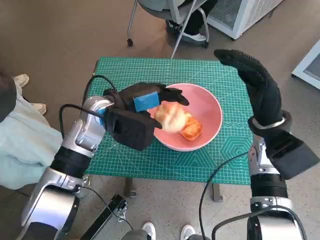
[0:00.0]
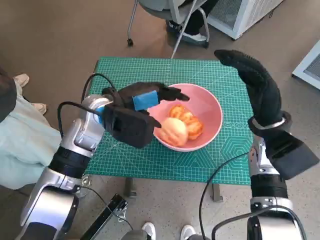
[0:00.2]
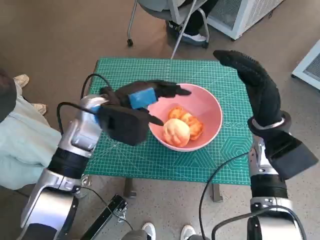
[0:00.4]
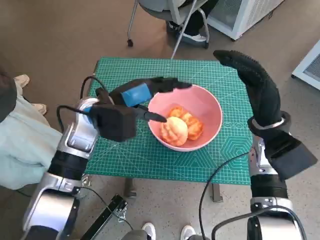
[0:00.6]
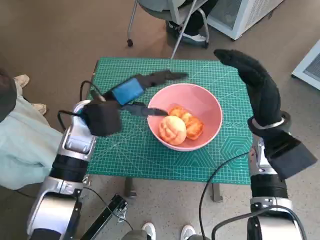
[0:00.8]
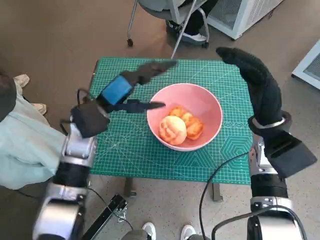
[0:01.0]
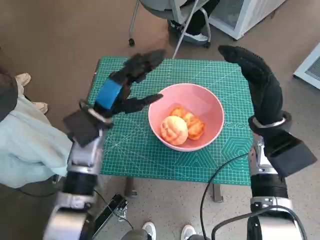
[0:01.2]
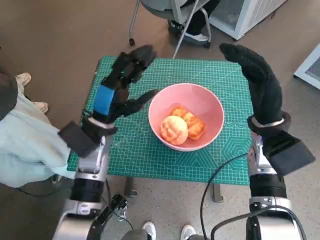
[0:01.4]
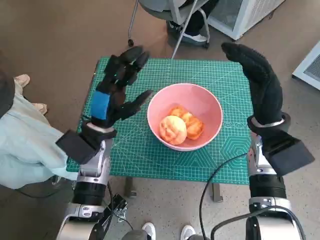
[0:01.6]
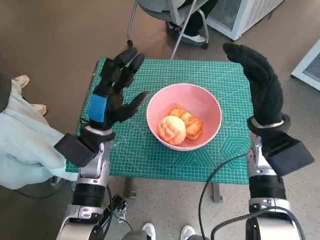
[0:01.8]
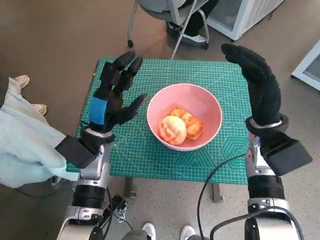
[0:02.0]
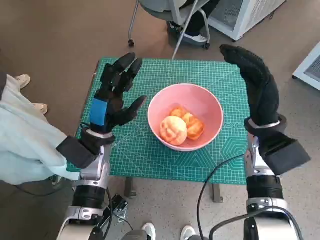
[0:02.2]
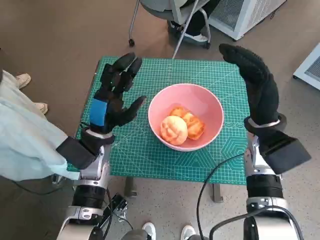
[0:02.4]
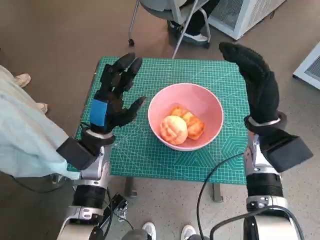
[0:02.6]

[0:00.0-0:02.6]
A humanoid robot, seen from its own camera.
Task of the whole recording: Push the bowl to the center of the table and put the bread into the bowl.
1.2 to 2.6 s: The hands move only a little.

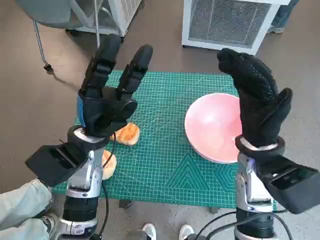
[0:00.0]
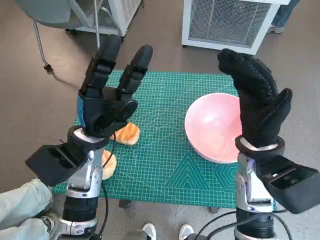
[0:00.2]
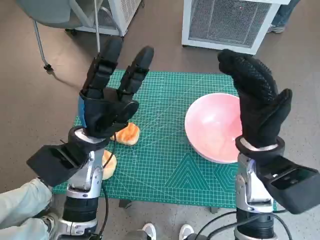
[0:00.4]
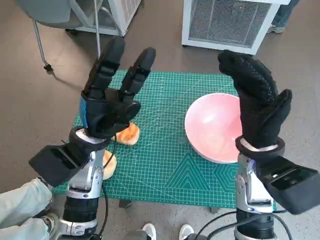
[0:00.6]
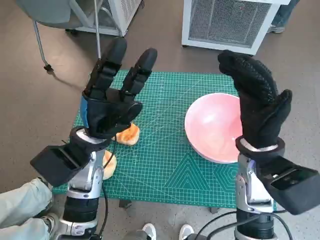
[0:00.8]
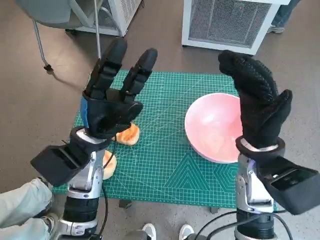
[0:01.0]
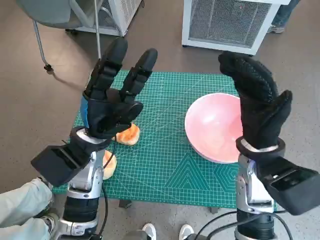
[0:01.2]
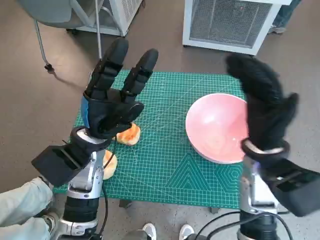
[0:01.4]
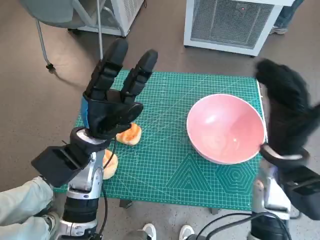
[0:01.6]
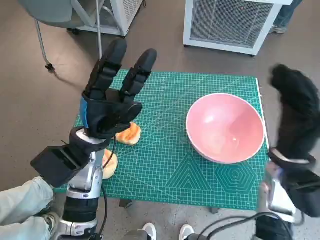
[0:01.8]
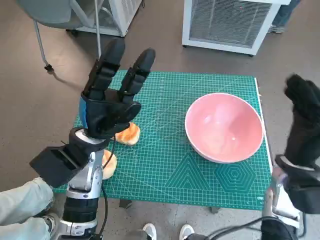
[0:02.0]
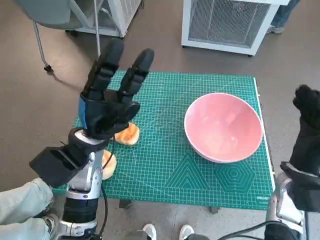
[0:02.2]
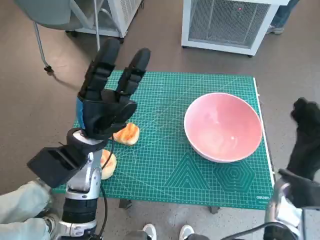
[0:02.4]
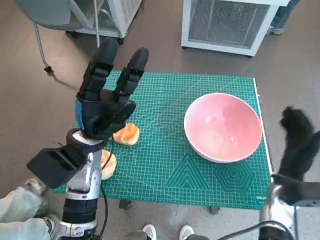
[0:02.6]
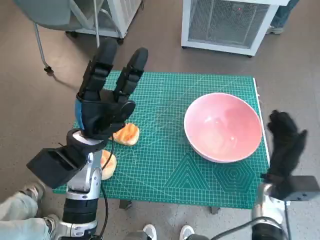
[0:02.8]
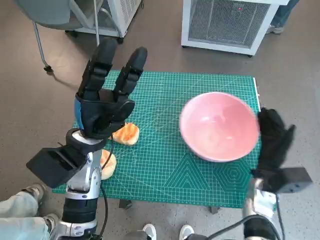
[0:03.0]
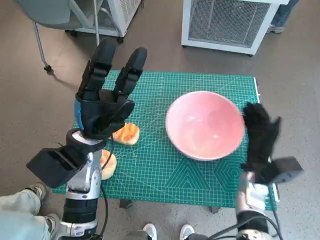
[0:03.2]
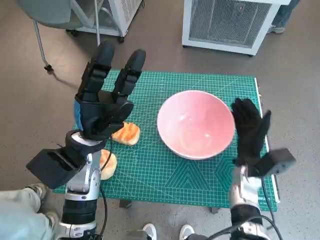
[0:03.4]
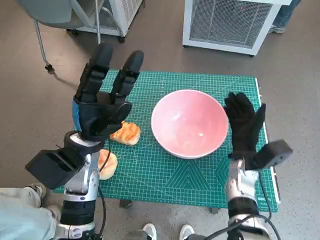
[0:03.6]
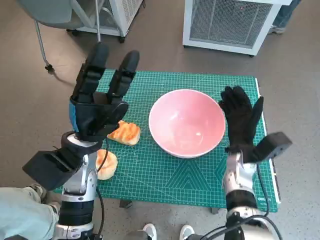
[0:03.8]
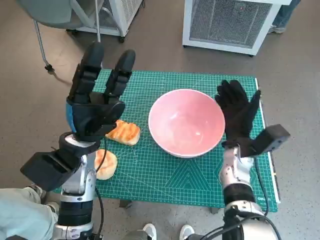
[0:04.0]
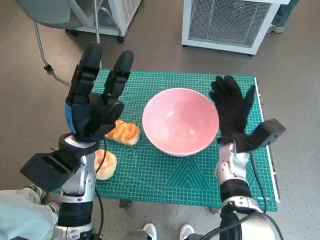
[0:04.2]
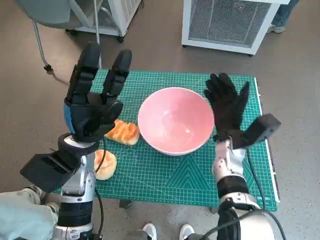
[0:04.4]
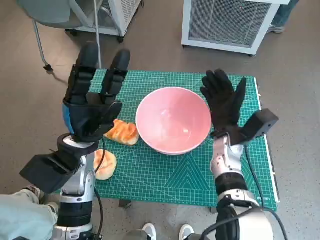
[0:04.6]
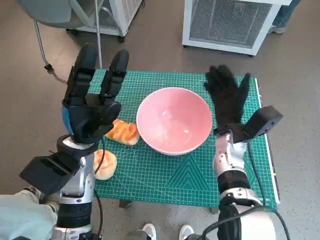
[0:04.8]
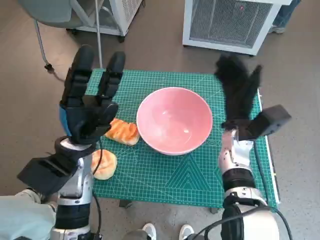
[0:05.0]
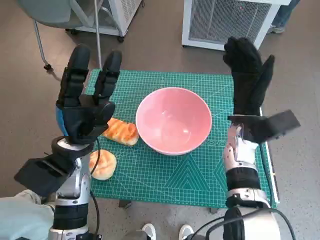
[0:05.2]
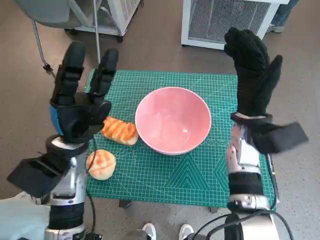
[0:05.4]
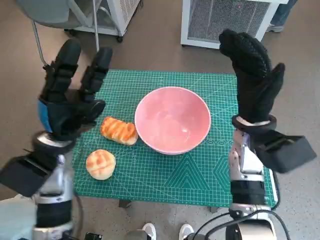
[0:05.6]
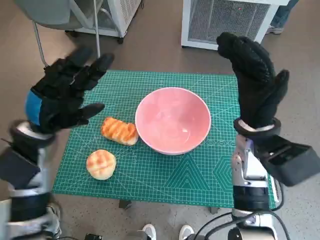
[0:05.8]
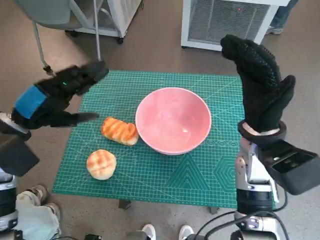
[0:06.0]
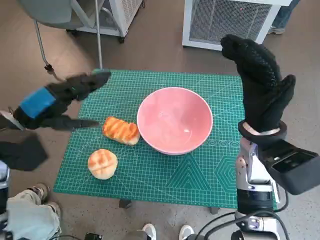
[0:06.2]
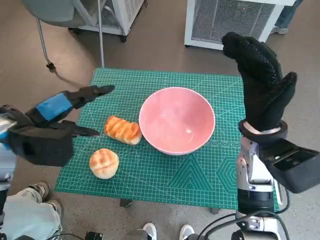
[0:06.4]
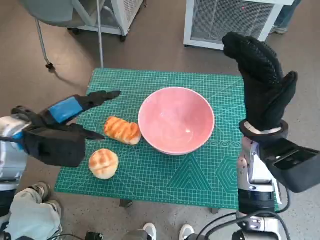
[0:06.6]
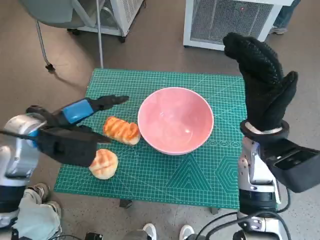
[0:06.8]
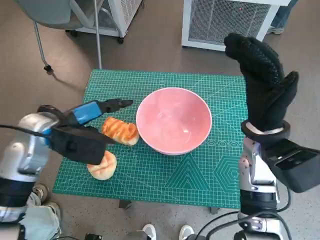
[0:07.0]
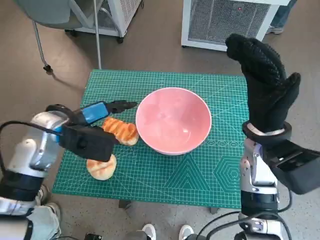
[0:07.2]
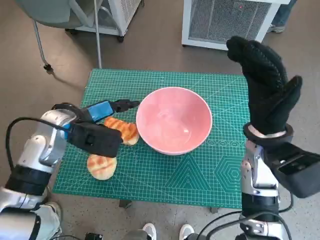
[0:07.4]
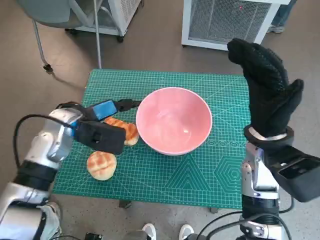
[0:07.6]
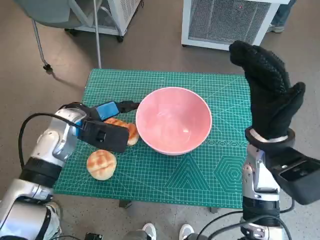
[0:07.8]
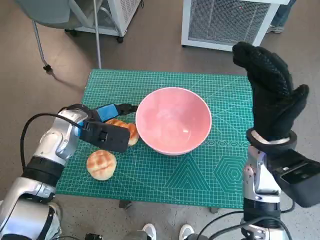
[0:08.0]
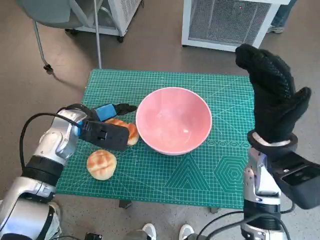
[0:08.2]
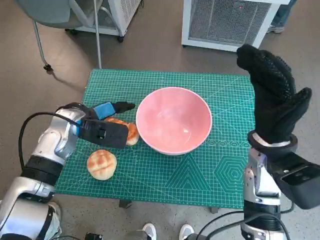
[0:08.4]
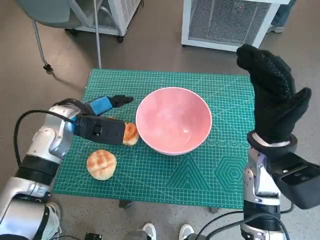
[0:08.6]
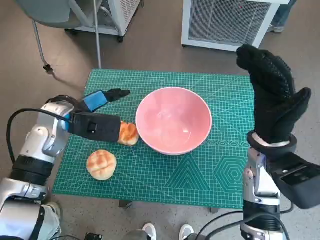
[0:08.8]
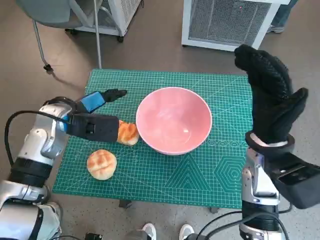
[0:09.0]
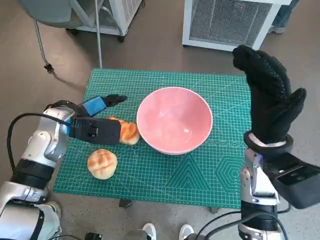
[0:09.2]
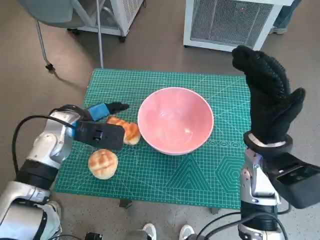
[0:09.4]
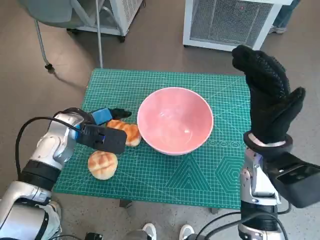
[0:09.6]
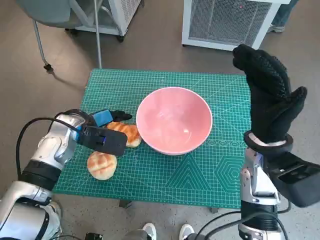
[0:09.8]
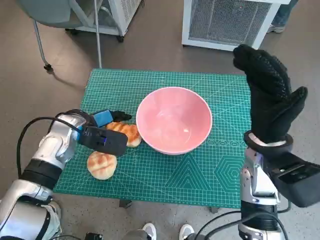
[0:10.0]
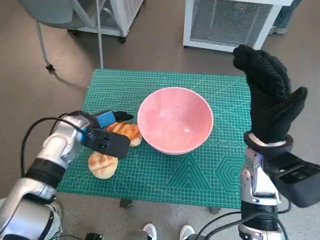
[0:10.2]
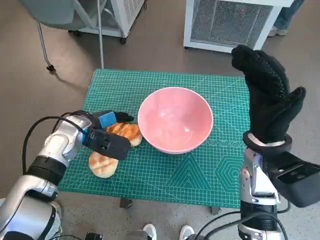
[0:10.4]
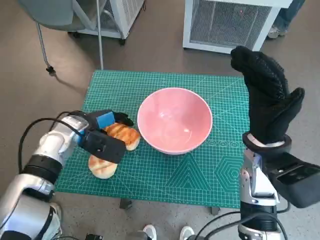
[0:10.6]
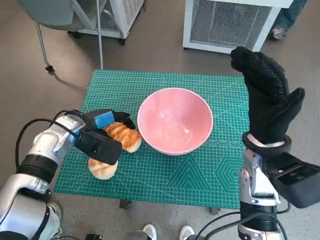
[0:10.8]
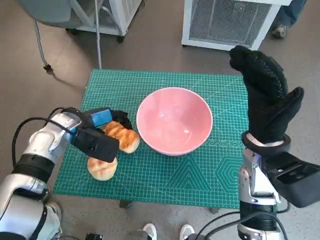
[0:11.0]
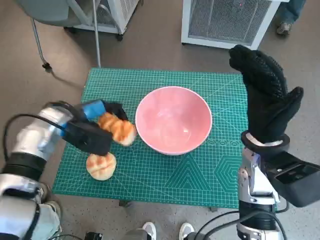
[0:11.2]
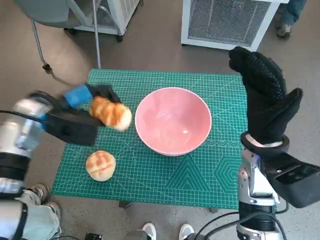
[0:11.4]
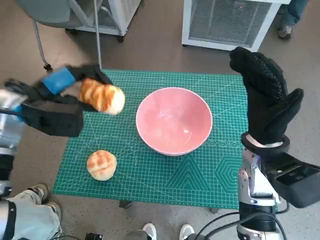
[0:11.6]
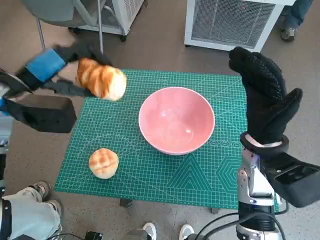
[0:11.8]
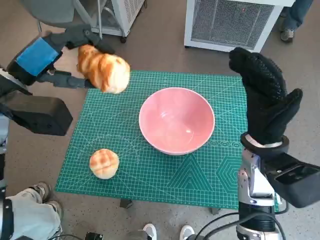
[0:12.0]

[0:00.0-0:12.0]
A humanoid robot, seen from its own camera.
Task of the whole recording: Push the bowl to the center of the table and put the bread into the bowl.
Step, 0.0 to 4.8 s: Move the pink bowl to the center of table with right hand.
Step, 5.0 to 10.6 s: Grasp the long bread with left hand.
1.6 to 3.0 s: The right hand shifts some 15 cm downward.
3.0 to 4.4 s: The right hand goes about 10 cm to the left and forward.
4.4 to 6.0 s: The right hand shifts roughly 10 cm upward. Meanwhile the left hand shifts roughly 10 cm to the left and upward.
6.0 to 7.6 s: The left hand is displaced to the right and forward by some 10 cm.
7.6 to 9.0 s: The hands stay close to where they were, moving slightly.
9.0 to 10.4 s: The left hand travels downward by some 5 cm.
10.4 to 12.0 s: The left hand goes roughly 15 cm upward.

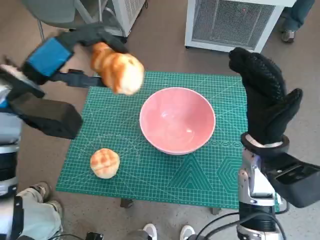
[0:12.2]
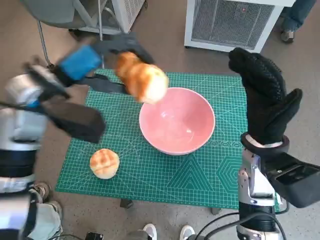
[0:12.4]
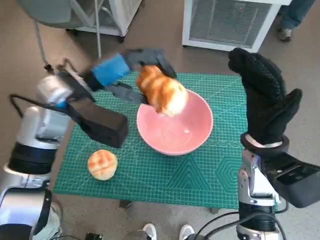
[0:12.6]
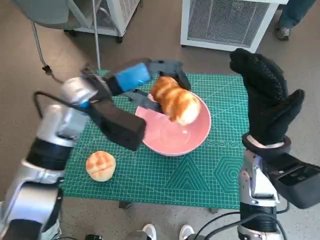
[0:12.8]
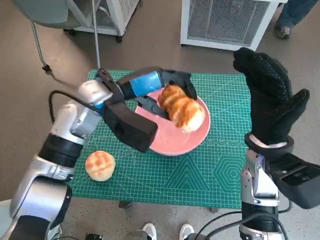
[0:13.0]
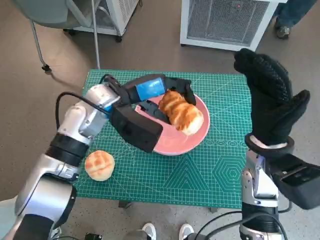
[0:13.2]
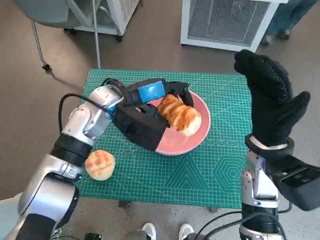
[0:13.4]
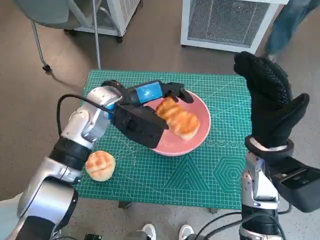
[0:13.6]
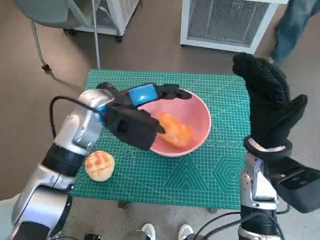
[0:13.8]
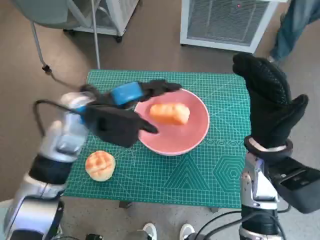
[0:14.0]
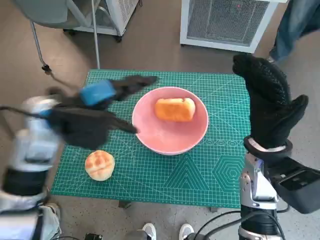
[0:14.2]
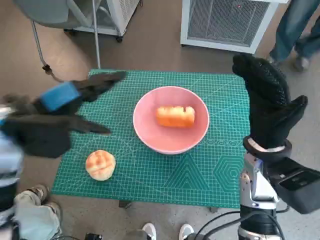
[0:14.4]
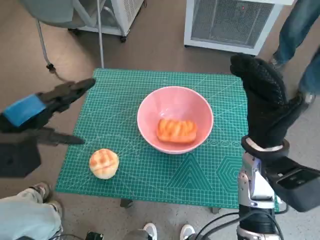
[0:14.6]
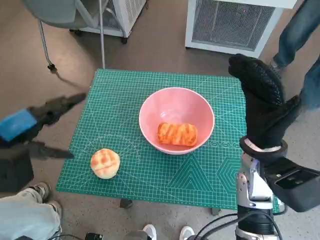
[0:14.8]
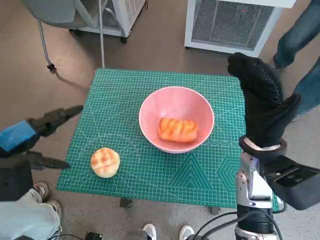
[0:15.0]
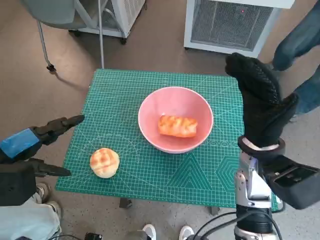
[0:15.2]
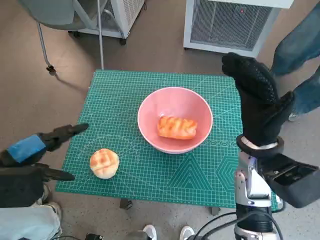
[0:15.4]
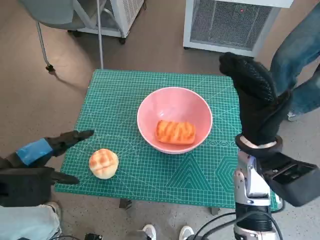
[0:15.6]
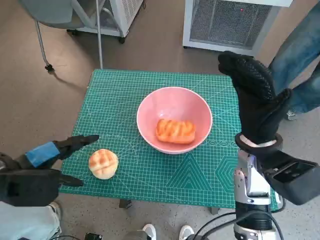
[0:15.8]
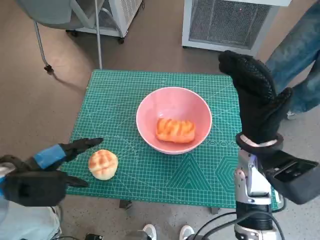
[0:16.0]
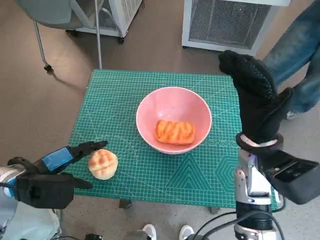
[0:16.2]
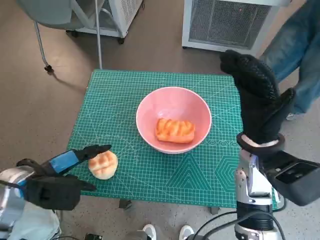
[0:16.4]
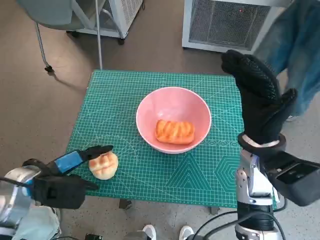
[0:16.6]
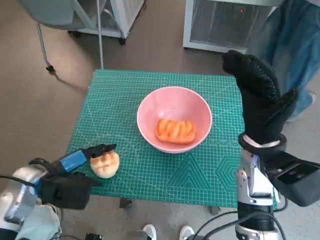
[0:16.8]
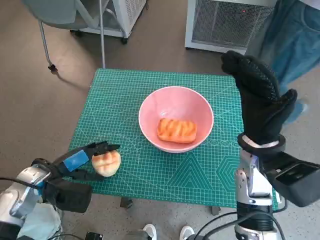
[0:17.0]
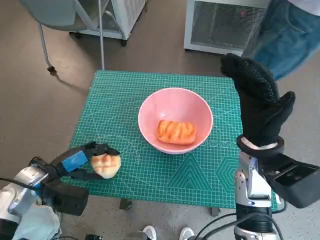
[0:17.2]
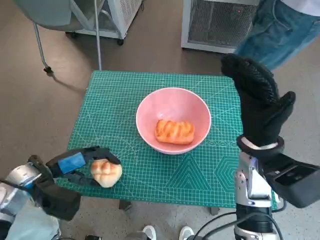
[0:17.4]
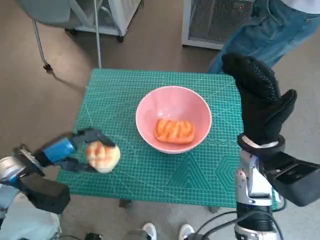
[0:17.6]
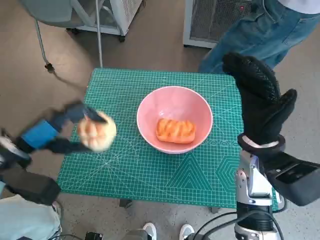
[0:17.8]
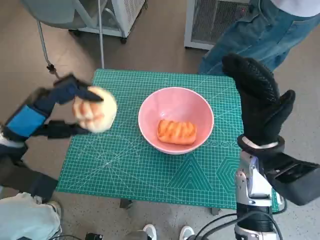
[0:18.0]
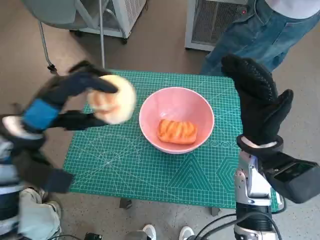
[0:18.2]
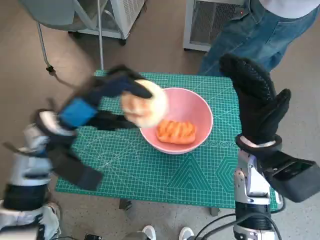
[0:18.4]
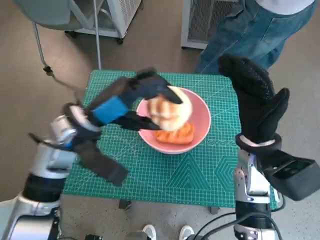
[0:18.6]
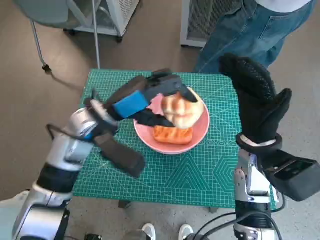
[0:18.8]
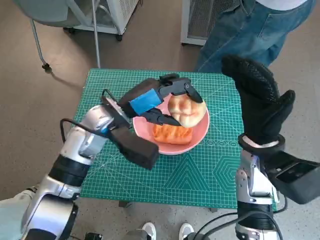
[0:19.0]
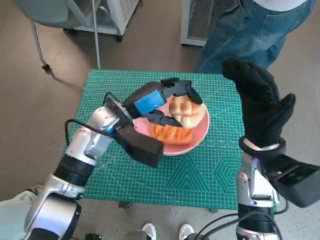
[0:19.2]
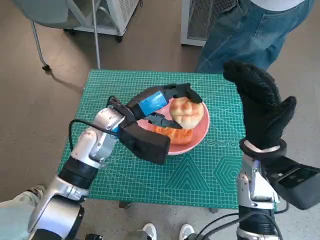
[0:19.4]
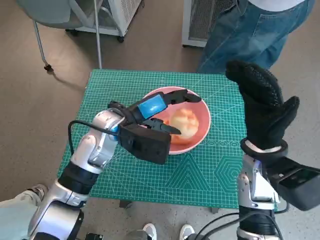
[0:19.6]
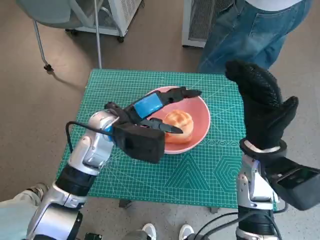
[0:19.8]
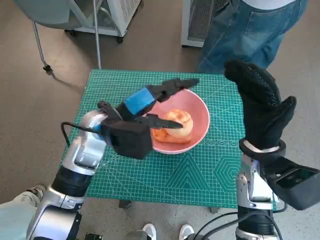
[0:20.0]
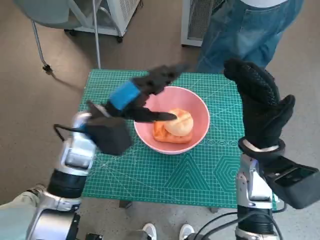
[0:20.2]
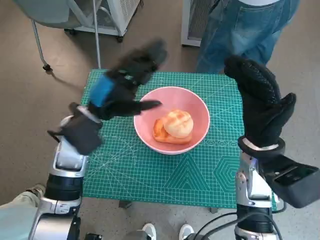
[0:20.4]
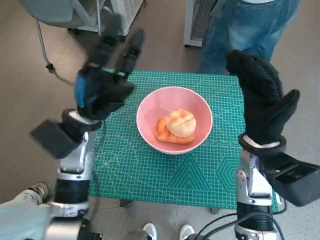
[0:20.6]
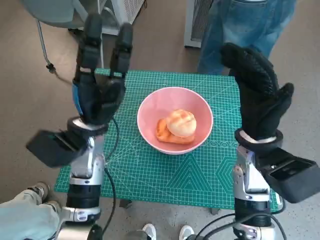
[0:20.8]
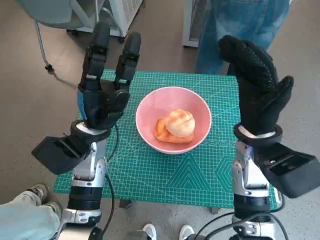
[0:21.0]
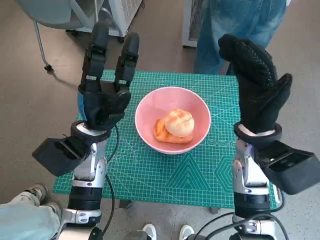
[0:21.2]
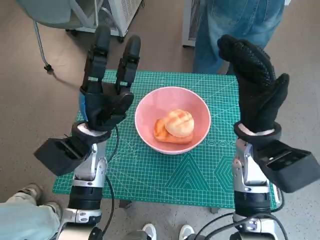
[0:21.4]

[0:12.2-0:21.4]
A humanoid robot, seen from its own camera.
Task of the whole recording: Push the bowl to the center of the table and put the bread into the bowl.
Step, 12.2 to 13.8 s: Place the long bread in pink bowl with left hand.
Step, 14.0 to 17.2 s: Grasp the round bread with left hand.
Step, 17.4 to 20.0 s: Place the round bread in pink bowl with left hand.
12.2 to 13.8 s: The left hand travels to the right and downward by some 15 cm.
13.8 to 15.2 s: The left hand shifts some 20 cm to the left and backward.
15.2 to 16.8 s: The left hand shifts roughly 10 cm downward.
16.8 to 18.4 s: The left hand is displaced upward and to the right by some 10 cm.
18.4 to 19.8 s: The left hand goes roughly 10 cm to the right.
19.8 to 21.4 s: The left hand ends up about 5 cm from where it was.
